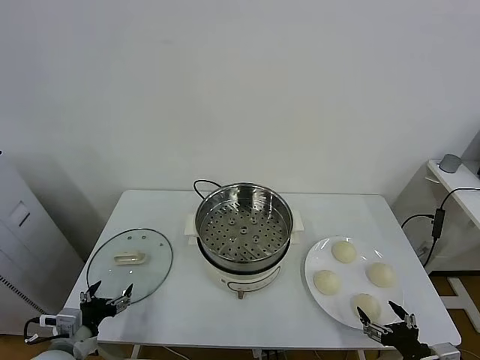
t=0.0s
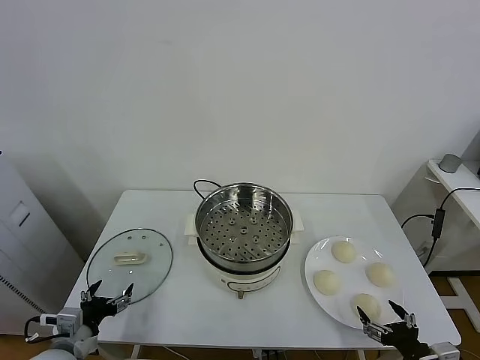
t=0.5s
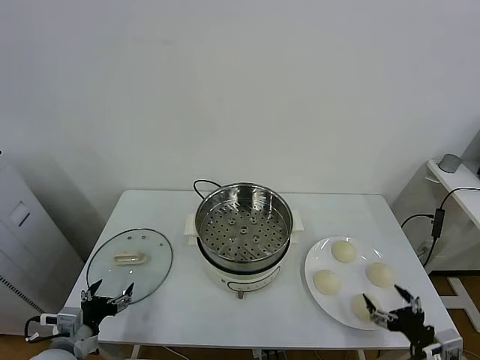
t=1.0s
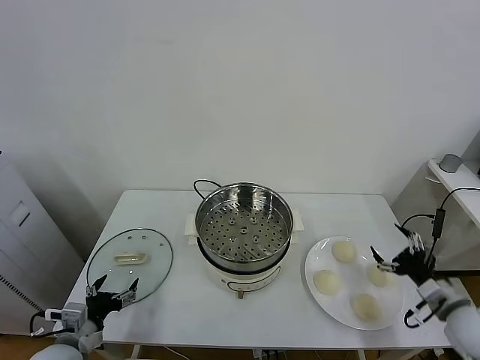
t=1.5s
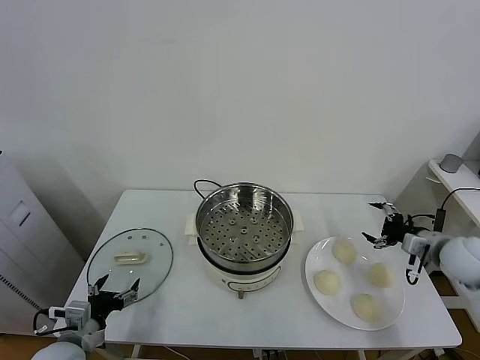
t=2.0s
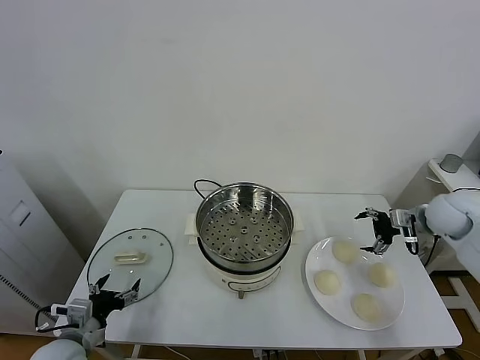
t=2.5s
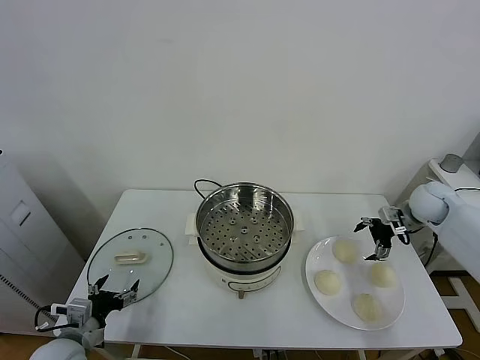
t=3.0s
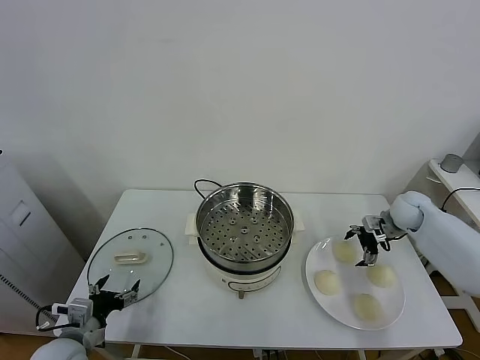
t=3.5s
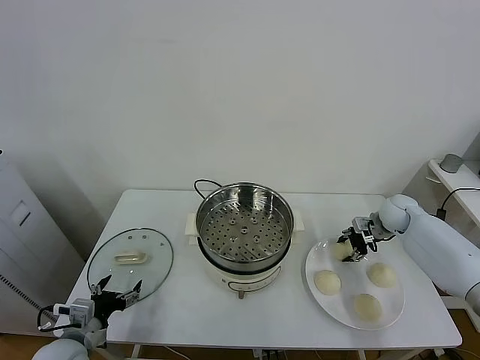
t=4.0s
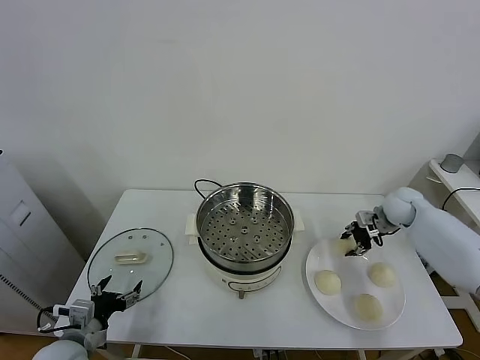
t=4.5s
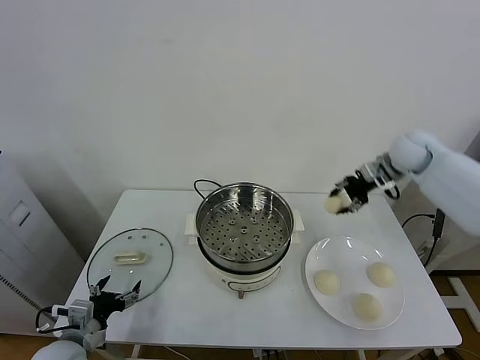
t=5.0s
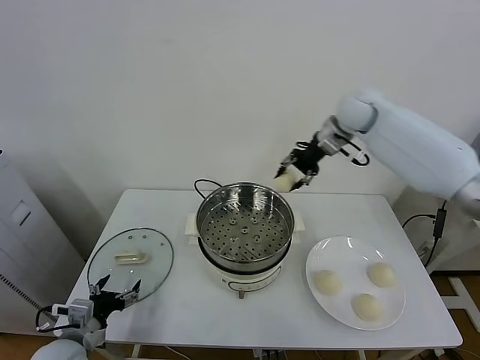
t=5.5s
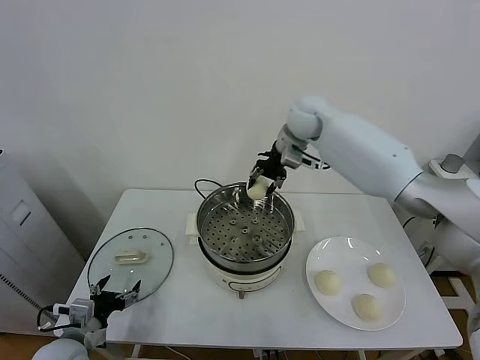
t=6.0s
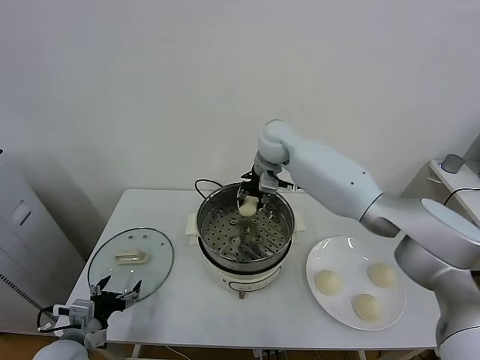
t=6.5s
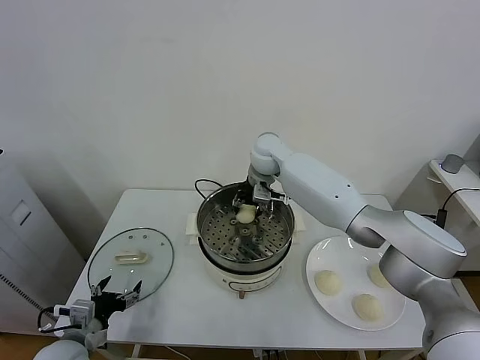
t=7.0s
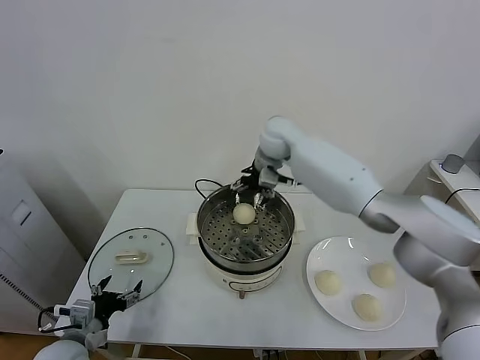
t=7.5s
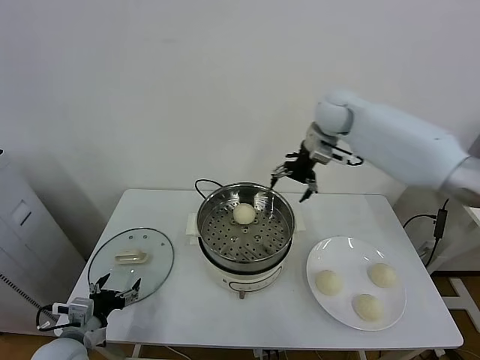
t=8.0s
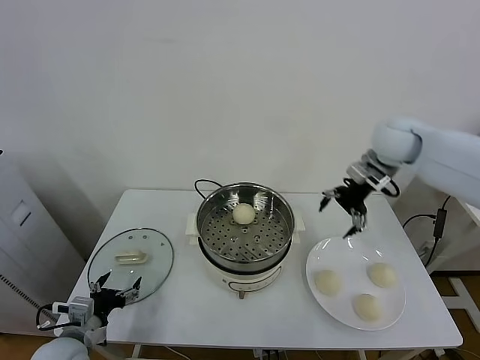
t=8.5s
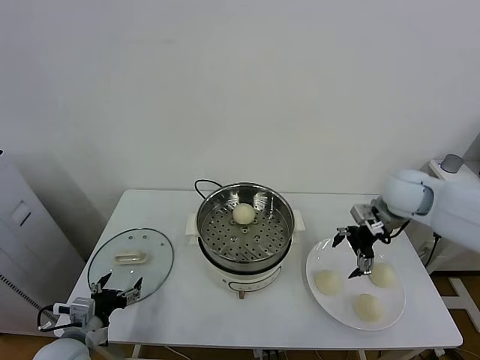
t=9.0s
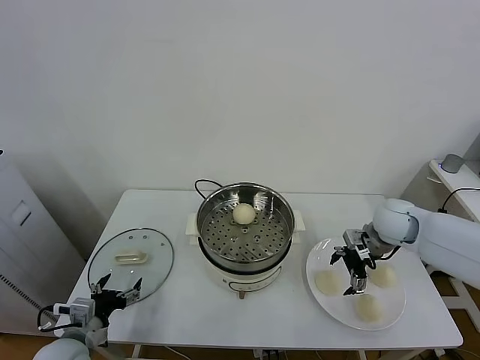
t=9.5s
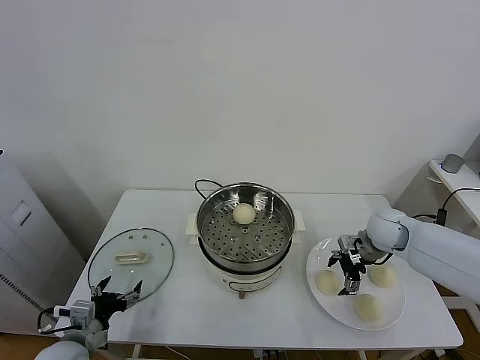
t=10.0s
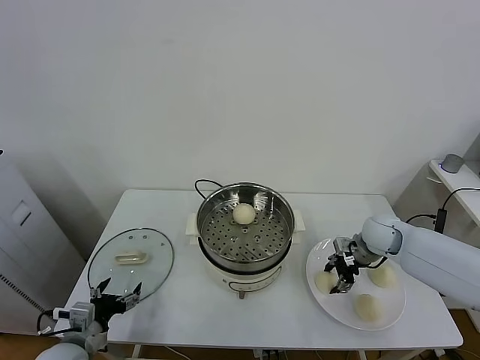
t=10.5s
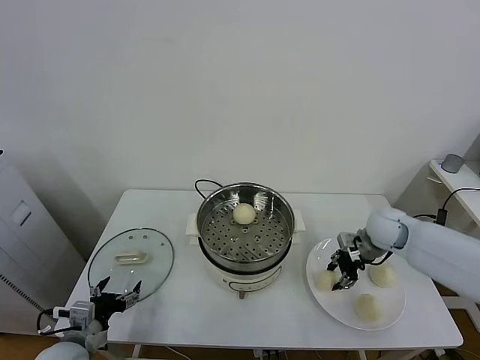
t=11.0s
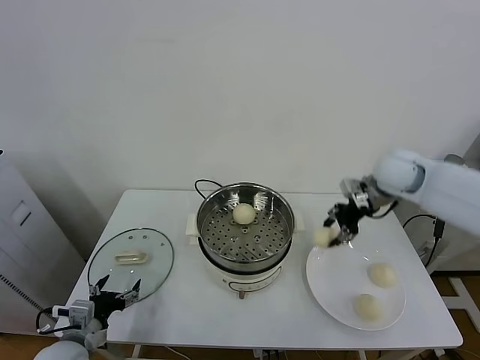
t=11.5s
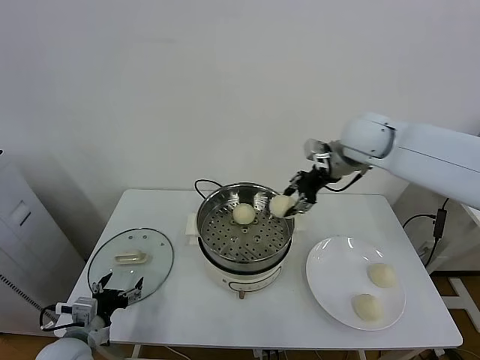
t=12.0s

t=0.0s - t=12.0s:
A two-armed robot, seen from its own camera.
Task of the whole recording: take steamed baozi put them in steamer.
Step, t=0.0s - t=4.0s: Grasp the baozi in the plate with right gripper.
Step, t=4.5s - t=7.0s: Place the baozi on the steamer with right gripper.
Step, t=7.5s - t=10.5s: Grasp the baozi in the plate with right gripper.
t=2.0s - t=4.0s: The right gripper goes approximately 15 cm forward and downward, and closes up.
t=4.0s - t=6.0s: The right gripper goes approximately 35 cm to the left and upward.
t=6.0s - t=8.0s: The right gripper travels to the right by roughly 10 cm, and opens.
t=8.0s - t=10.0s: The right gripper is displaced downward, backward and to the right by some 30 cm.
t=10.0s - t=12.0s: The right gripper goes approximately 25 cm upward and to the left, and closes up.

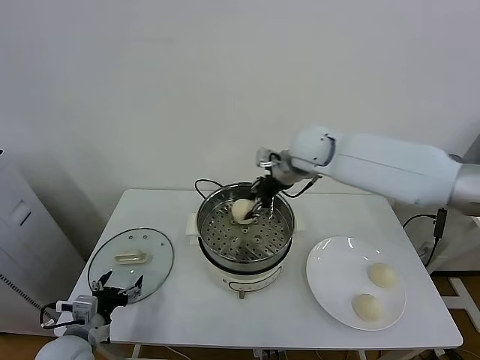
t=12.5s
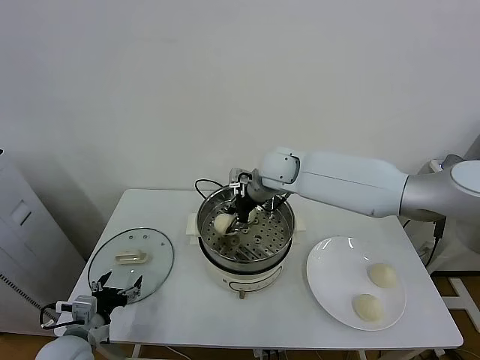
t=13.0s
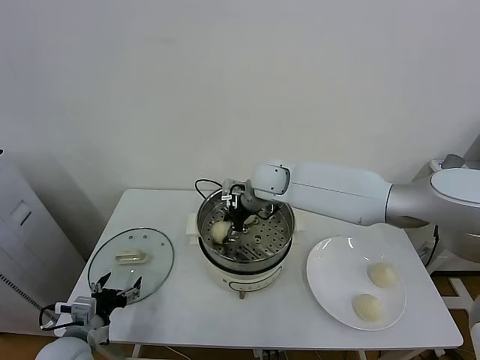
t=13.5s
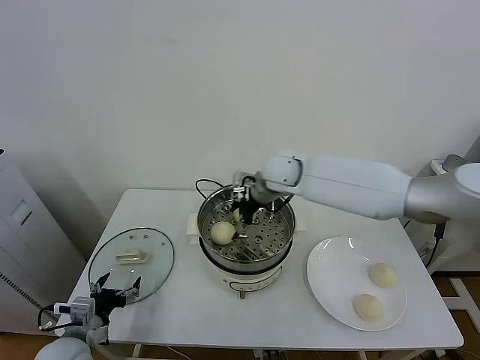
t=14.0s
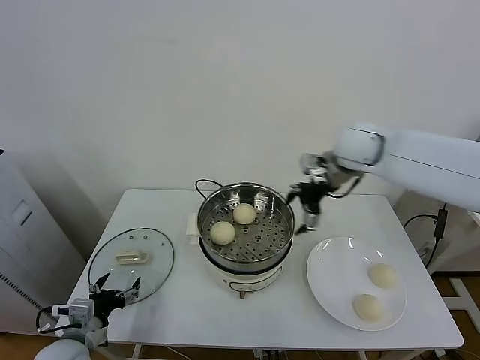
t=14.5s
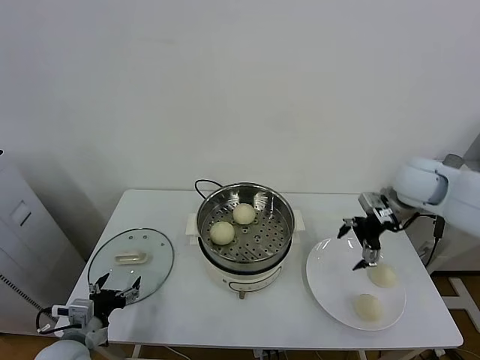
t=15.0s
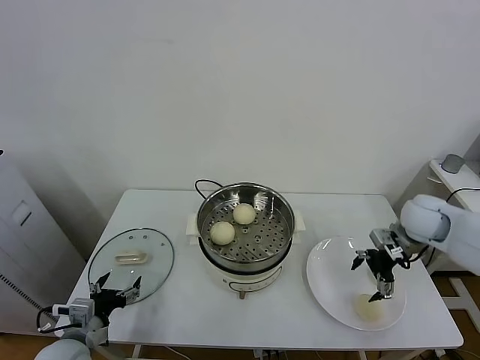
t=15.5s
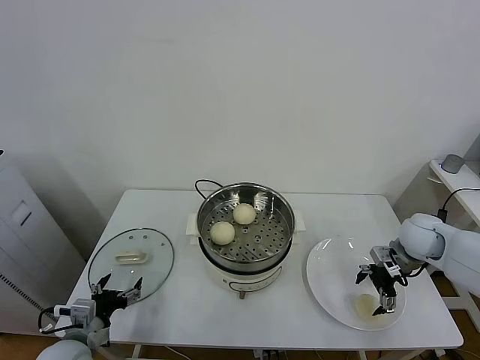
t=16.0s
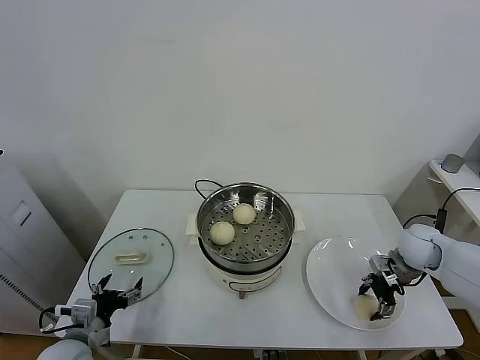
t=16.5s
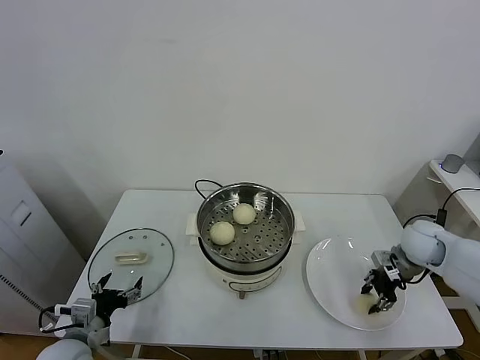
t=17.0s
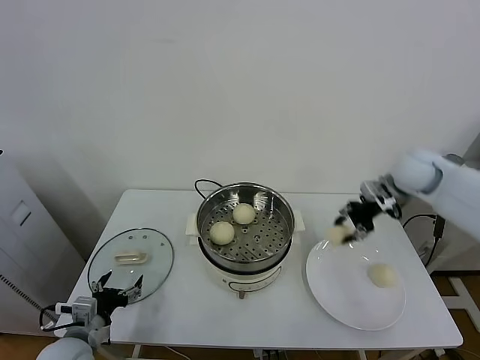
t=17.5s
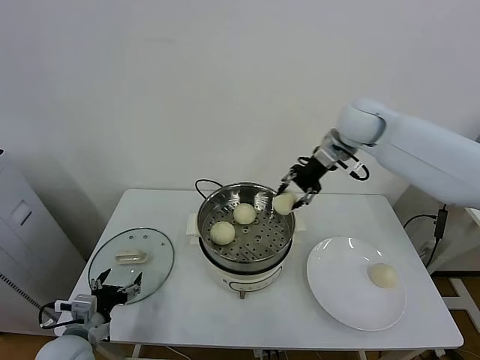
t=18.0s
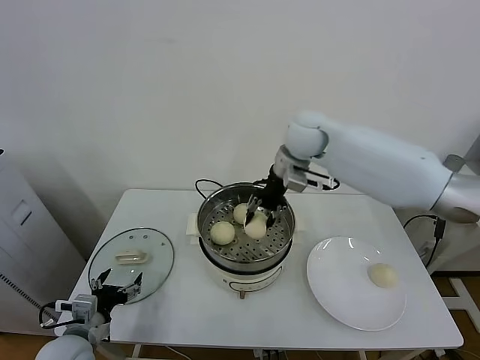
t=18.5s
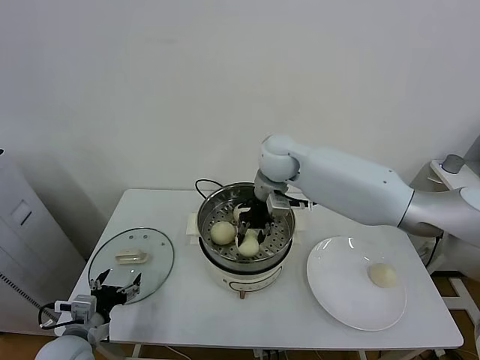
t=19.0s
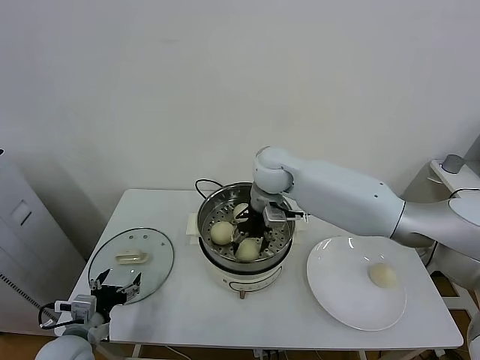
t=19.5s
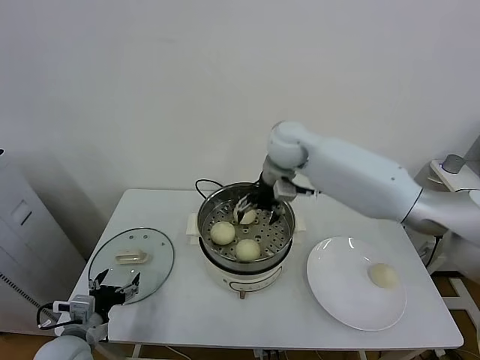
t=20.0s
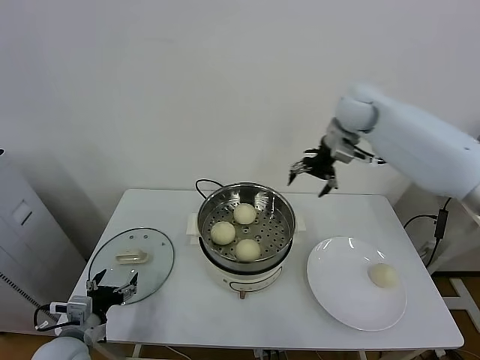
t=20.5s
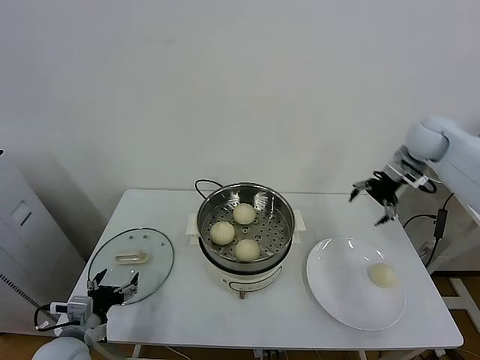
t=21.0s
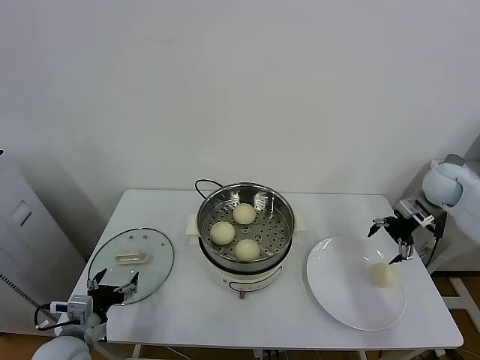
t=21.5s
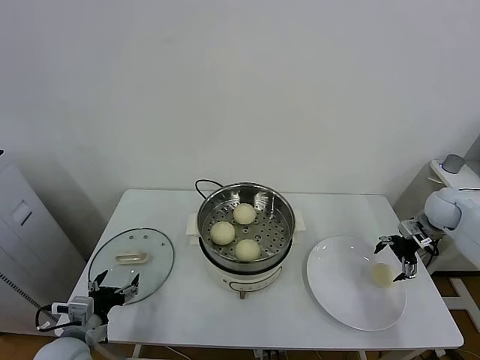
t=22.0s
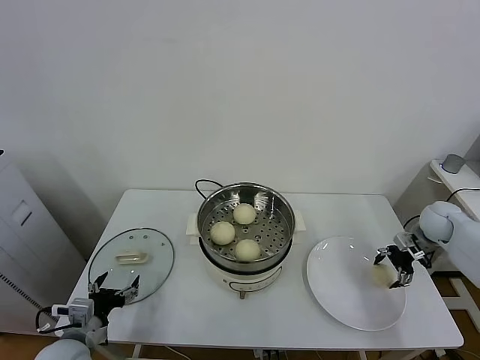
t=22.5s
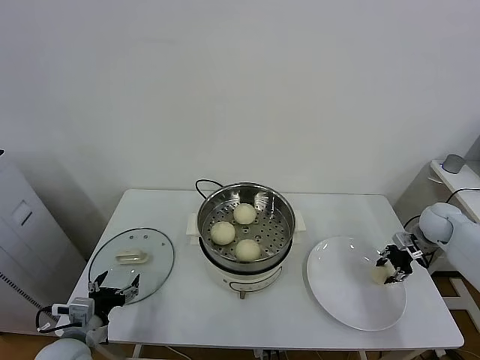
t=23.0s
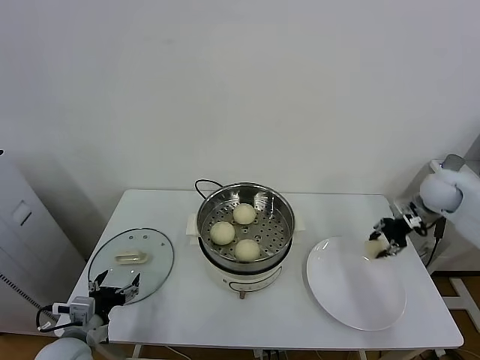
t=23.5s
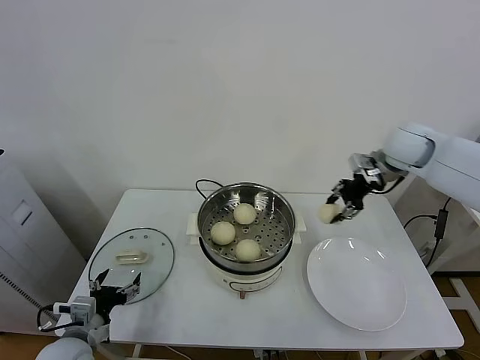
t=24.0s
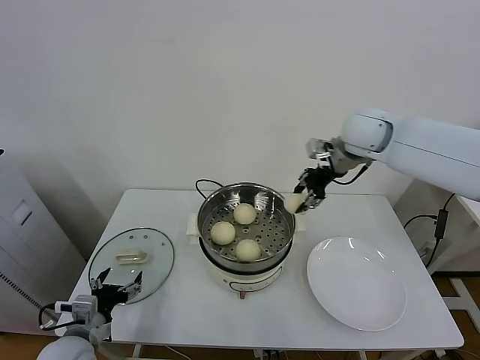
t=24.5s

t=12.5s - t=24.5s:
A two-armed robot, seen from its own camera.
Task of the whole recording: take steamed baozi put them in steamer.
Step, t=14.5s - t=16.5s: Grasp the baozi in the plate with right gripper.
Step, t=17.5s - t=19.5s: Place the baozi on the steamer with right gripper.
Step, t=20.0s - t=23.0s: Grasp the baozi in the plate with right gripper.
t=12.5s - t=14.5s: The right gripper travels to the right by some 10 cm, and opens.
t=14.5s - t=16.5s: The right gripper is displaced downward and to the right by some 30 cm, and closes its fingers.
t=16.5s - t=18.5s: The right gripper is displaced to the left, upward and forward by some 40 cm, and closes its fingers.
t=18.5s - t=20.5s: The right gripper travels to the right by approximately 15 cm, and opens.
t=20.5s - t=22.5s: The right gripper shifts about 35 cm downward and to the right.
t=22.5s - t=24.5s: The right gripper travels to the left and upward by some 35 cm, and closes its fingers.

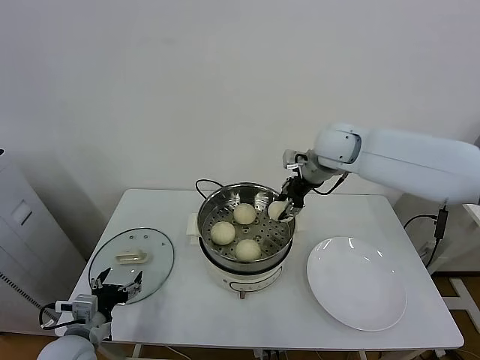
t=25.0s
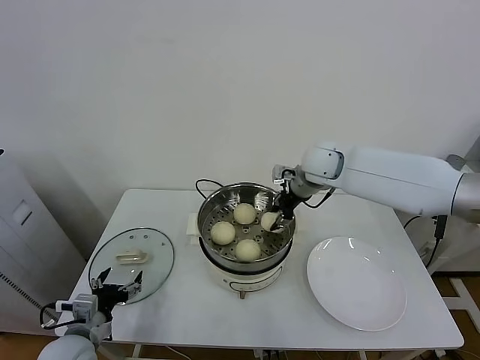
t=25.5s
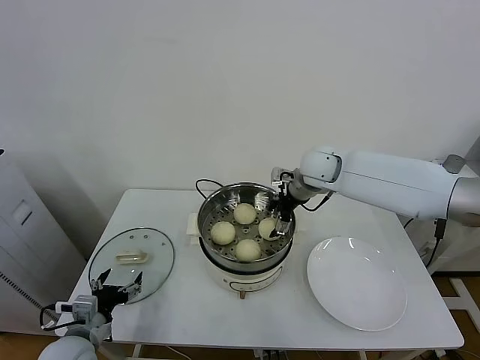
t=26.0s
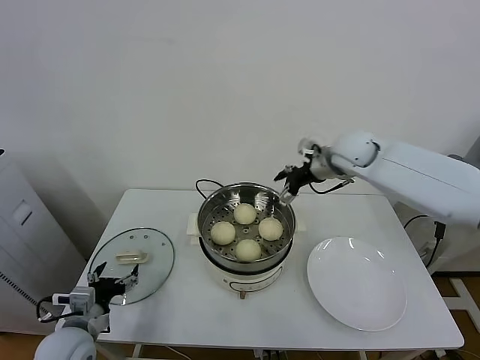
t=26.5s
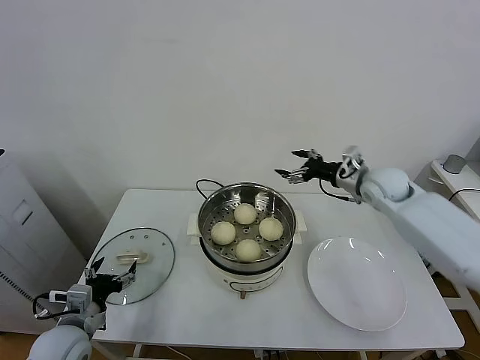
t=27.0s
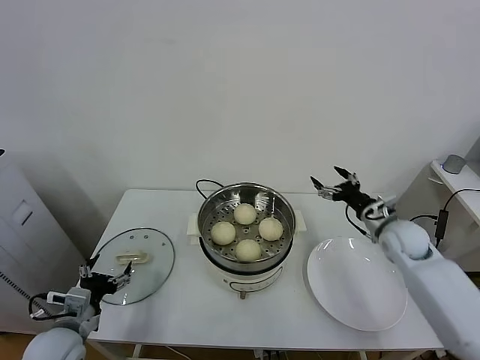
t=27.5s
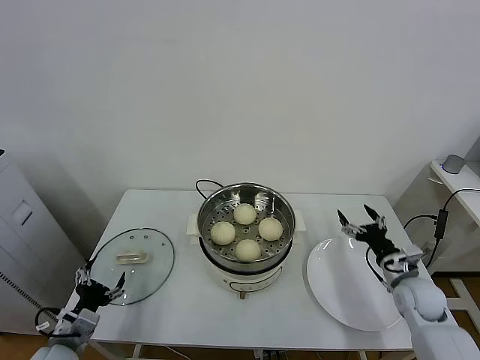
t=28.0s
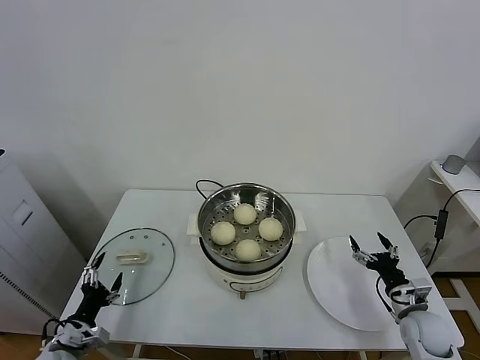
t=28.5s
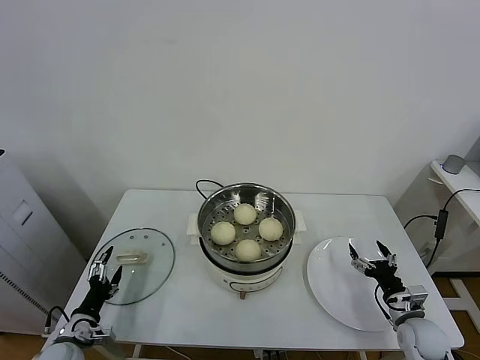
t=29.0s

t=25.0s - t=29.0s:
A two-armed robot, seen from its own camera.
Task of the whole recording: take steamed baozi put them in steamer.
t=25.0s - t=27.0s: The right gripper shifts about 15 cm to the right and downward, and opens its fingers.
t=27.0s - t=29.0s: The right gripper moves downward and backward, about 35 cm, while the left gripper is displaced downward by about 10 cm.
